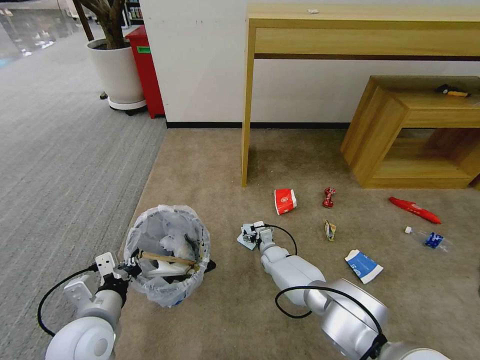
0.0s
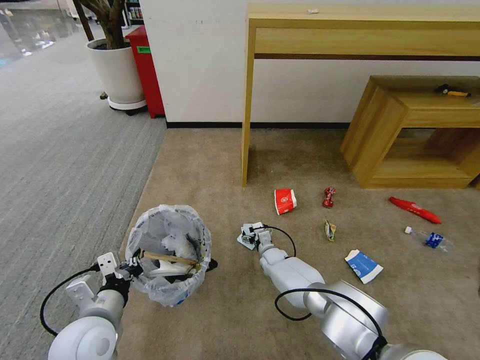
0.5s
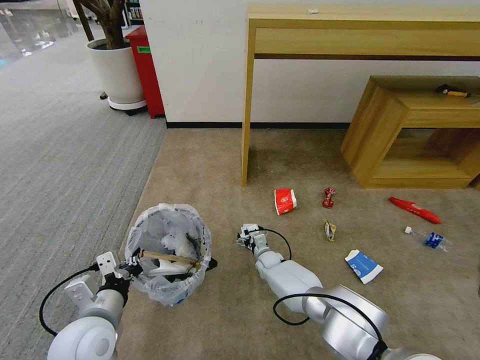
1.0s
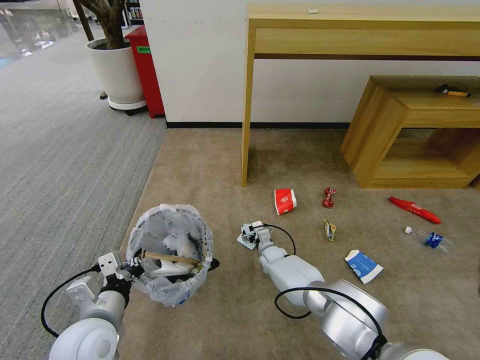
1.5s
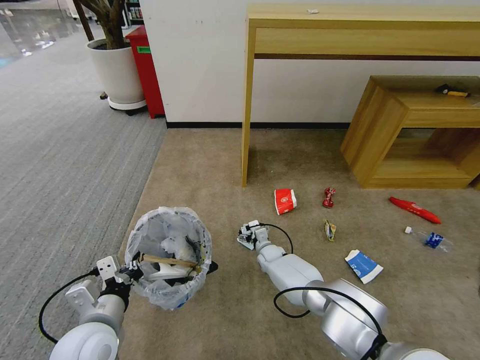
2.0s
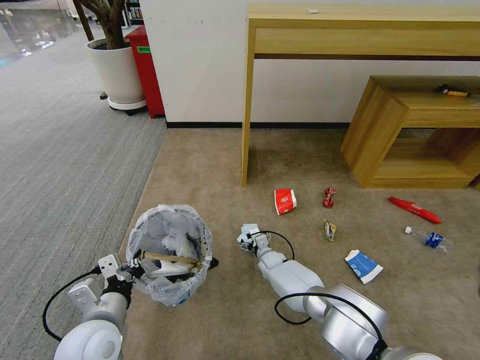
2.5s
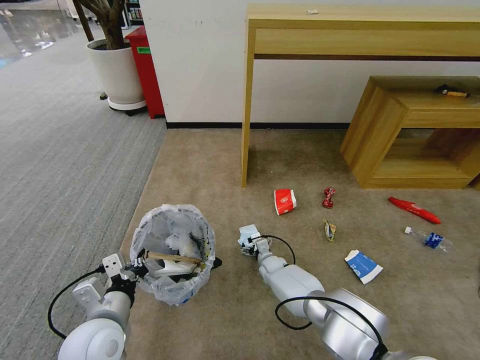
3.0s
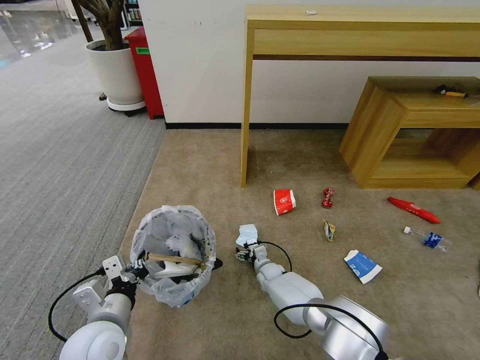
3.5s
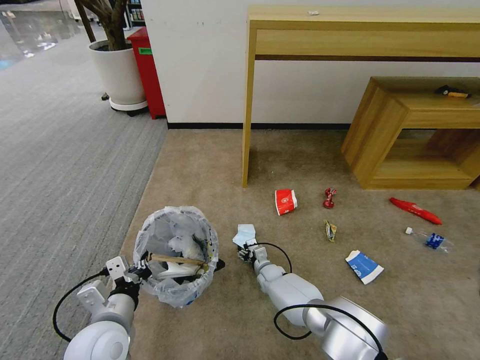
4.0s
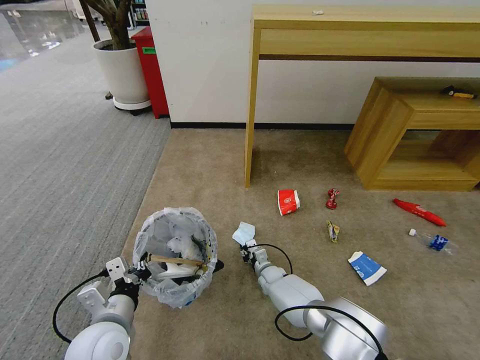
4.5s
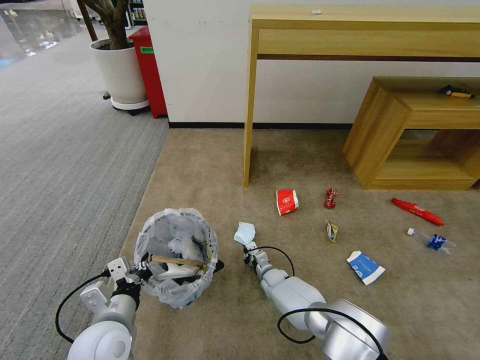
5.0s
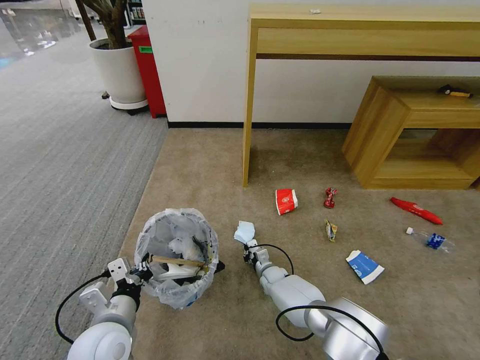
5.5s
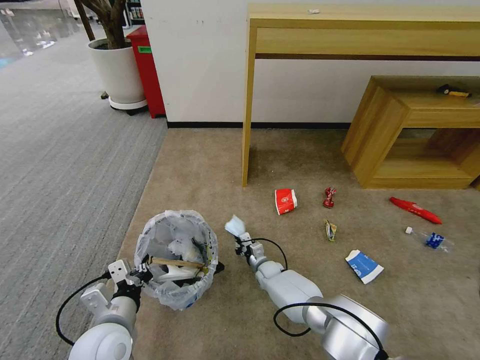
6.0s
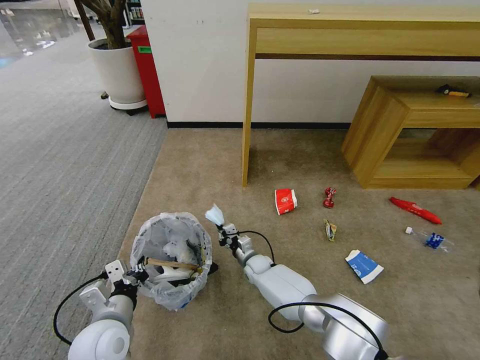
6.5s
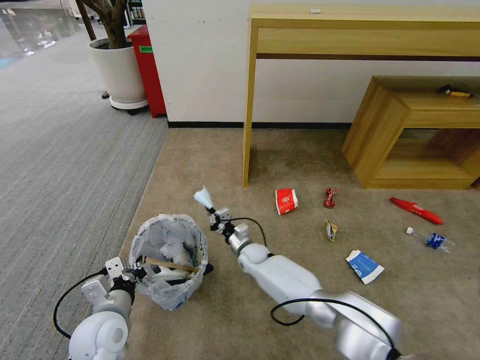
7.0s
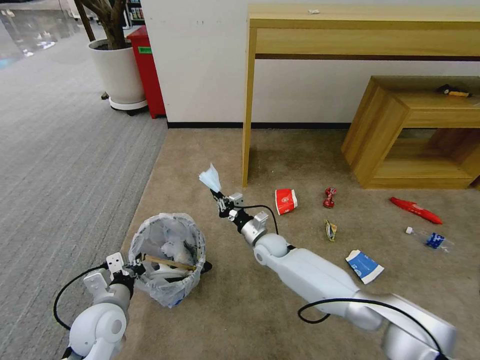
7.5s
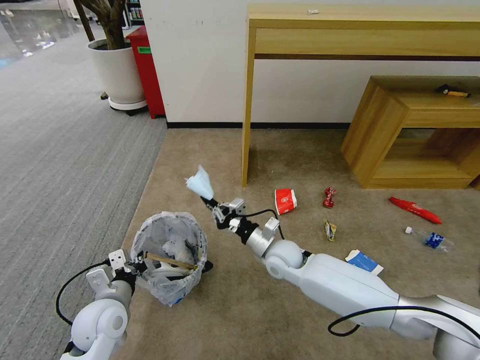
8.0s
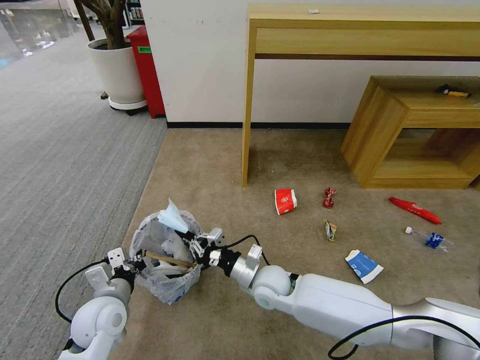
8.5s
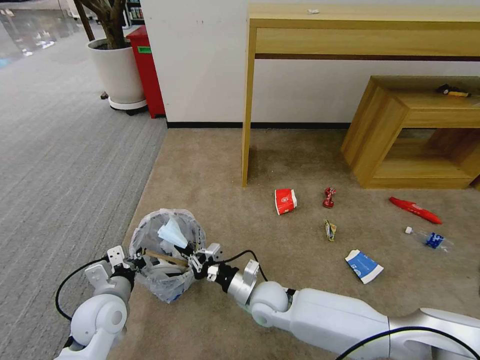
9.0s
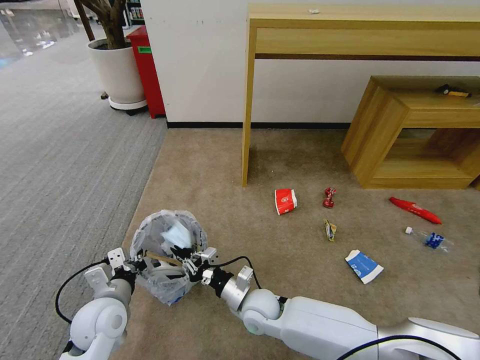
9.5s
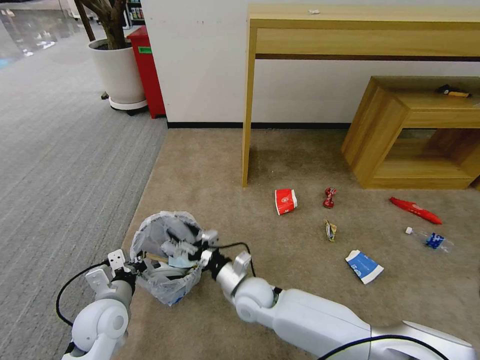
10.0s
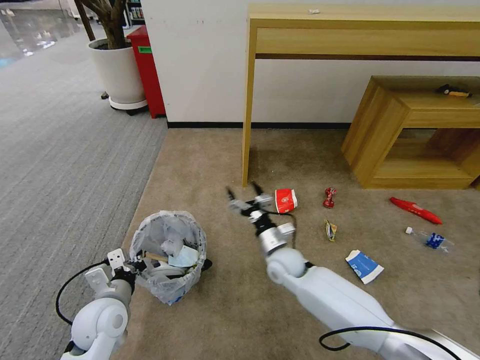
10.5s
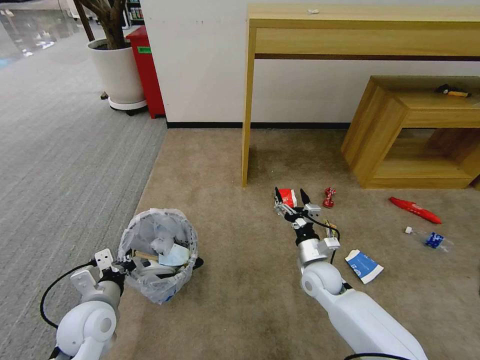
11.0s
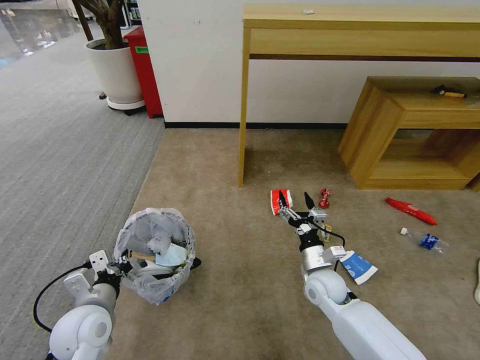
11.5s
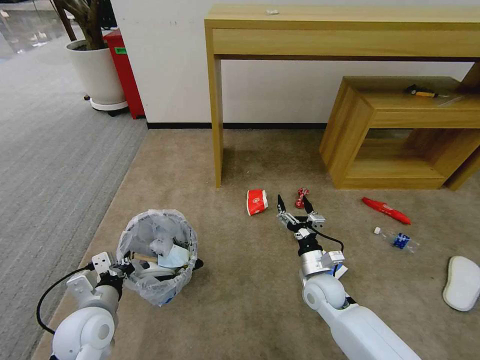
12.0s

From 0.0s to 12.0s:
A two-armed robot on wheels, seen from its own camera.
Task of the whole recording: Pick up the trash bin and place the garbage on the floor into it.
From 0.0s to 2.0s: The grippers stay close to where they were, moving slightly.
From 2.0s to 4.0s: The right gripper is displaced backward by about 5 cm.
From 4.0s to 6.0s: The right gripper closes its fingers.
From 6.0s to 8.0s: The left gripper moves forward, approximately 5 cm. The right gripper heads upward, covering roughly 20 cm.
From 8.0s to 10.0s: The right gripper heads backward and to the left, covering some 15 cm, and opens up.
From 10.0s to 12.0s: The right gripper travels to the right by roughly 20 cm, and opens up.

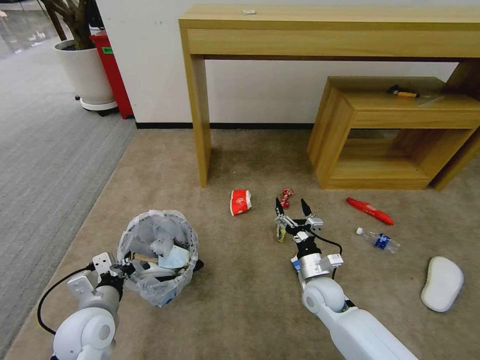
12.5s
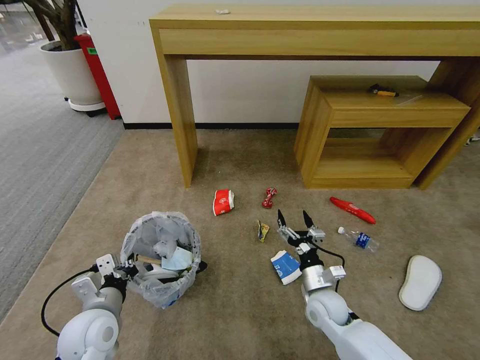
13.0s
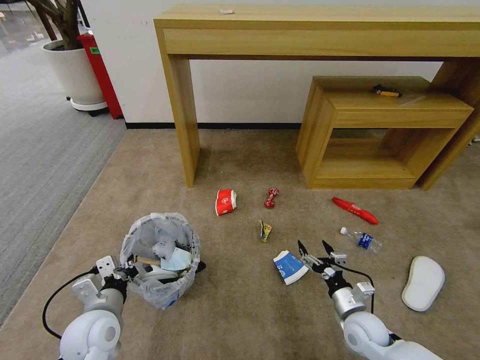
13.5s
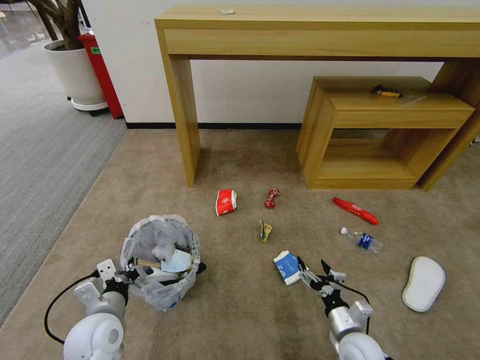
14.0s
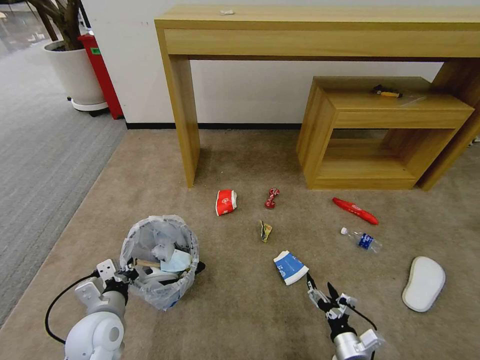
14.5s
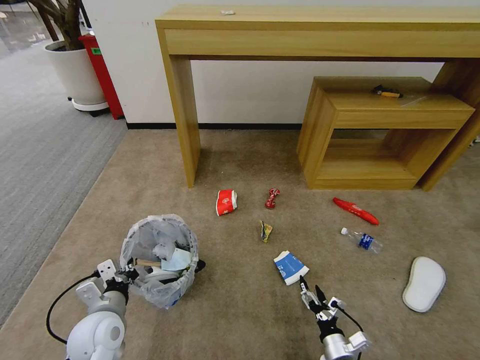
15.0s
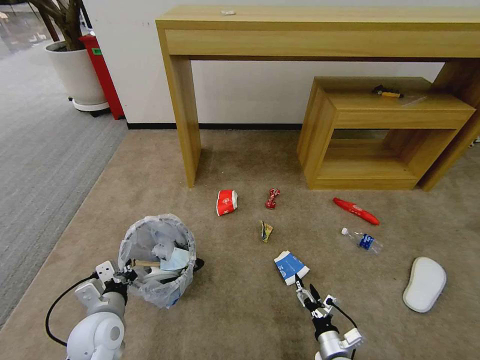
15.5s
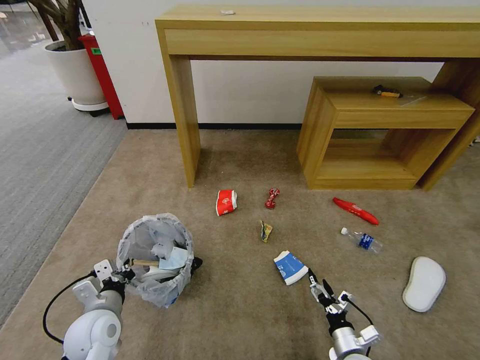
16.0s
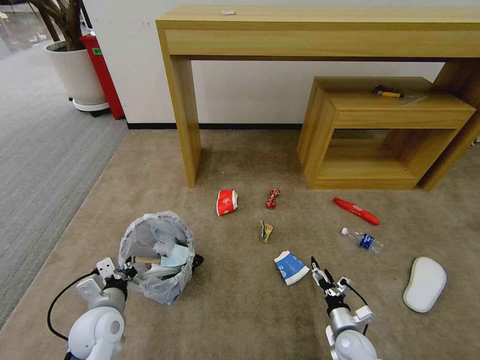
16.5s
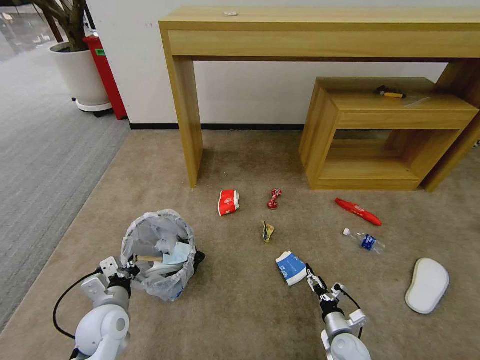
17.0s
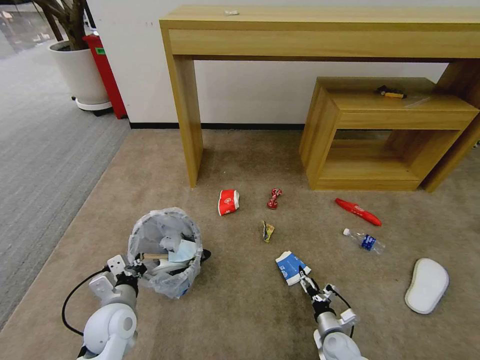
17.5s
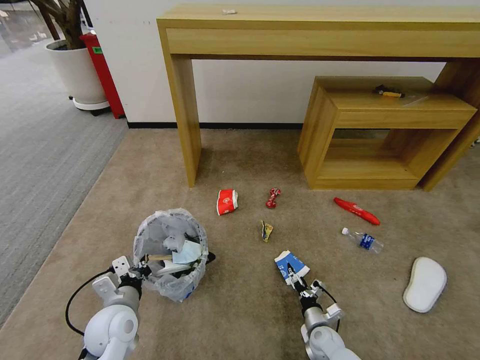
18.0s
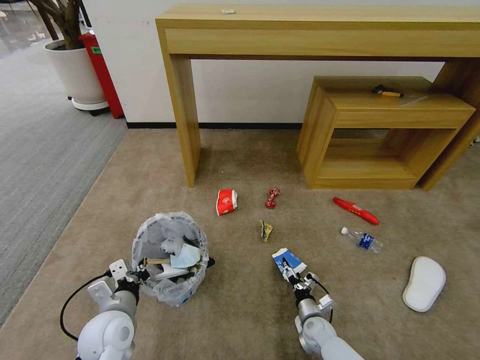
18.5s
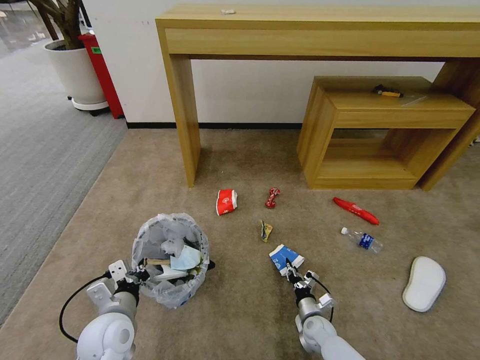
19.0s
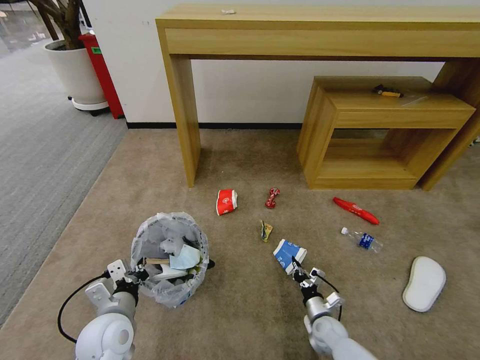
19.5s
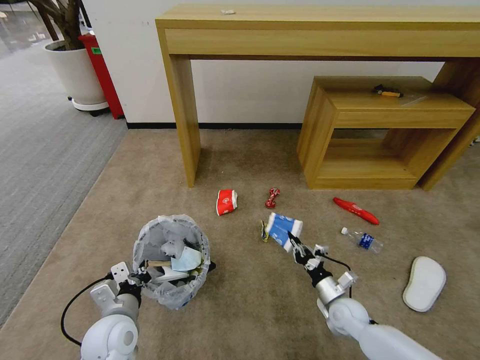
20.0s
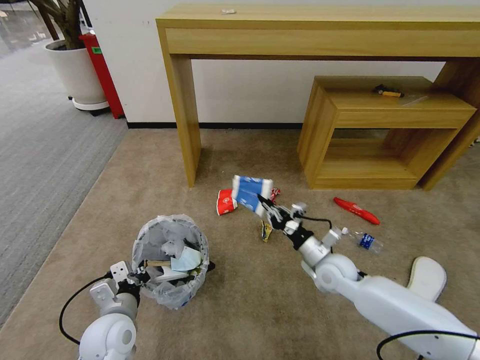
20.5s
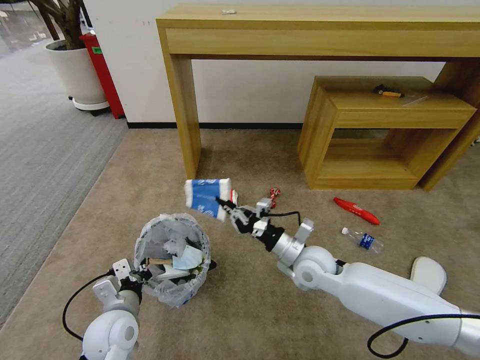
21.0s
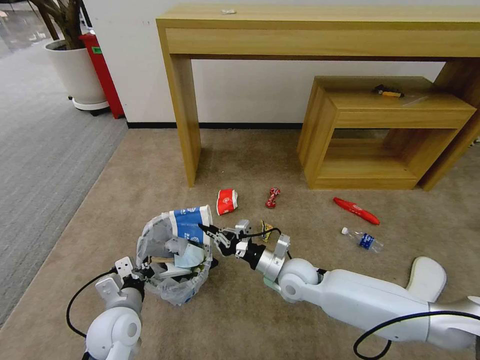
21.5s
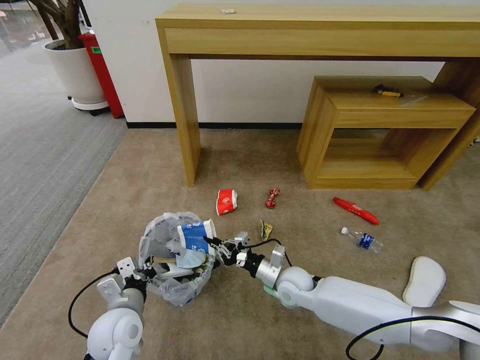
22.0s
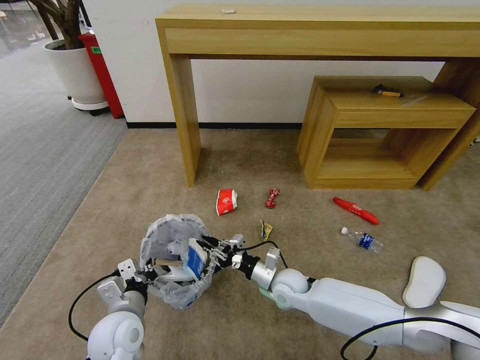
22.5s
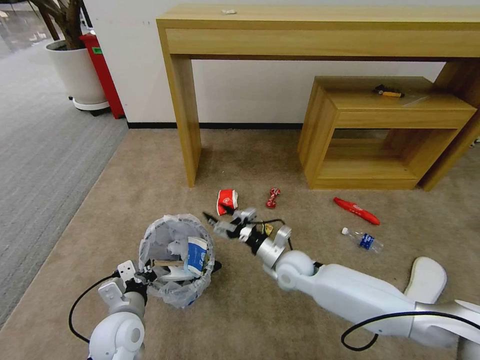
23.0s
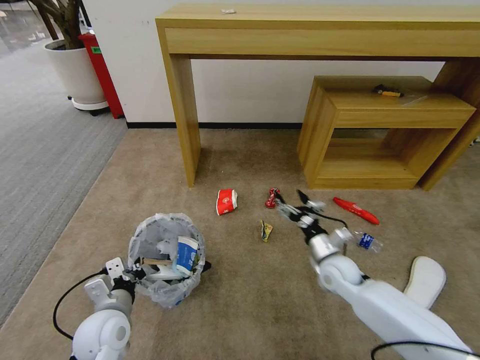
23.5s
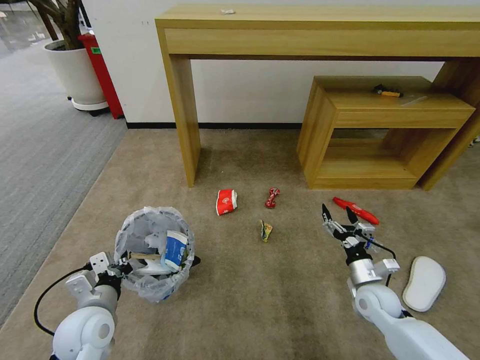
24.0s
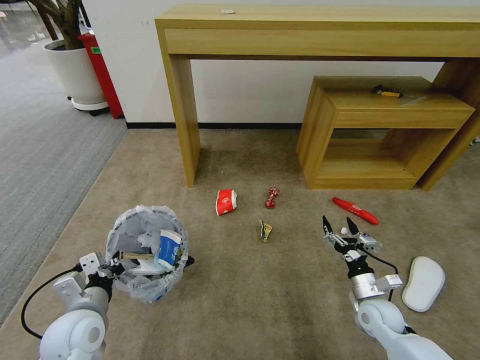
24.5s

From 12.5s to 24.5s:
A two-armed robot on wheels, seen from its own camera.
Task of the whole recording: Pick up the trash bin and place the garbage on the floor into it.
From 12.5s to 14.5s: The right gripper shifts some 20 cm backward, to the right and downward.
From 14.5s to 16.5s: The right gripper is displaced forward by roughly 5 cm.
From 16.5s to 18.5s: The right gripper heads to the left, downward and forward, covering about 10 cm.
From 18.5s to 20.5s: The right gripper is displaced upward by about 20 cm, and closes.
From 20.5s to 22.5s: The right gripper goes roughly 10 cm to the left.
From 22.5s to 24.5s: The left gripper moves to the left, about 5 cm, while the right gripper goes roughly 20 cm to the right, and opens its fingers.

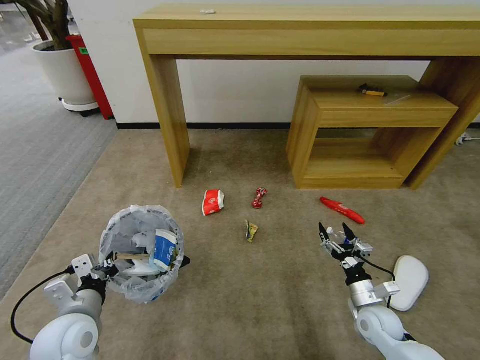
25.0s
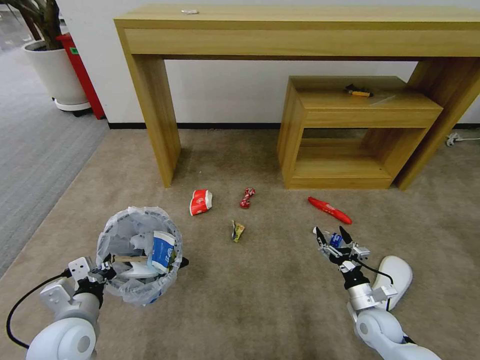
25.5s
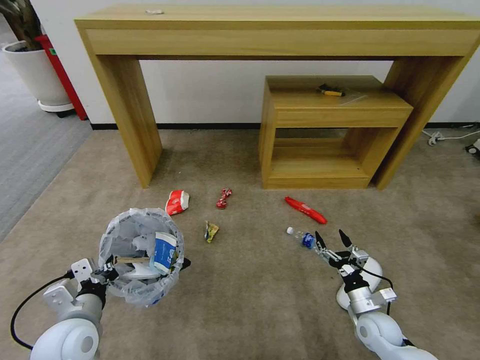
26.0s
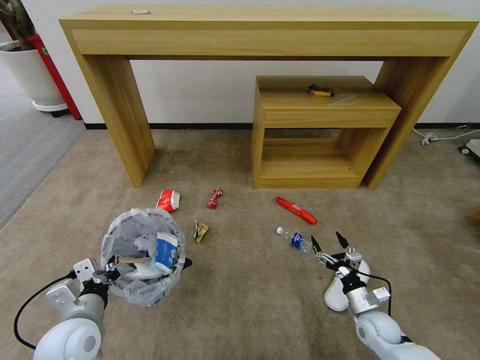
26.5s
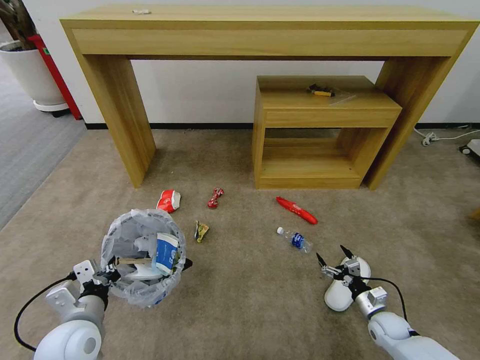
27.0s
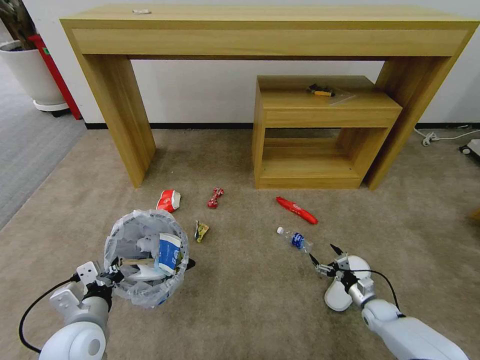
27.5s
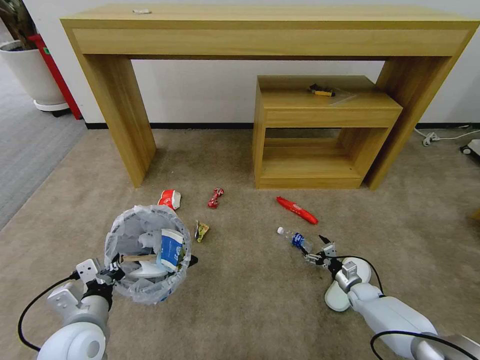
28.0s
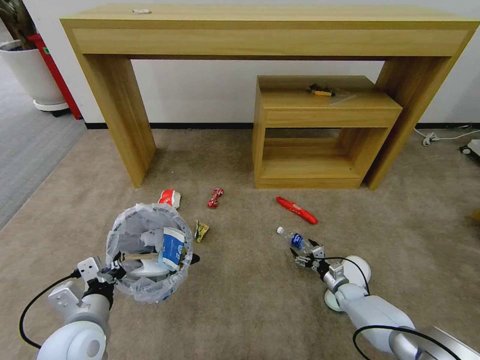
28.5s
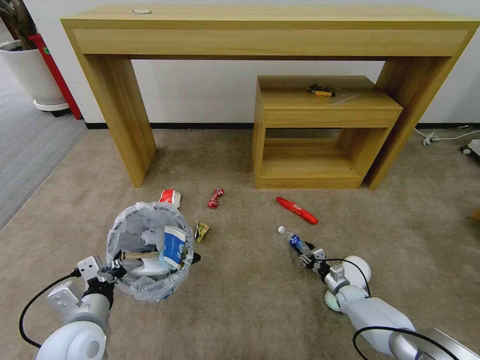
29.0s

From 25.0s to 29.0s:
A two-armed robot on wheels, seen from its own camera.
Task of the whole recording: Pick up the trash bin and place the garbage on the floor into it.
From 25.0s to 27.0s: The right gripper goes about 10 cm downward and to the right.
From 27.0s to 29.0s: The right gripper heads forward and downward, covering about 10 cm, and closes.
